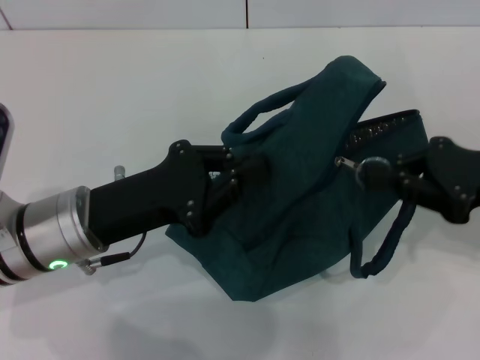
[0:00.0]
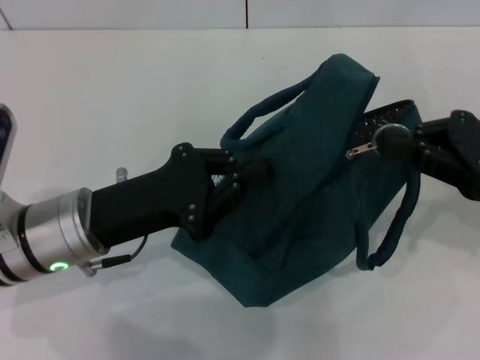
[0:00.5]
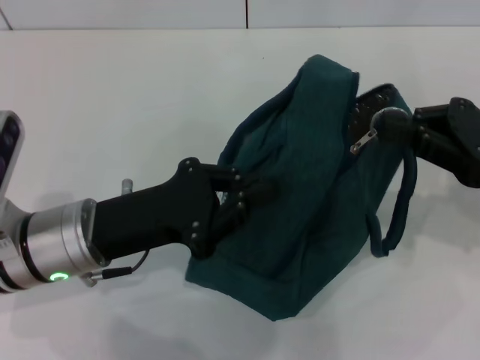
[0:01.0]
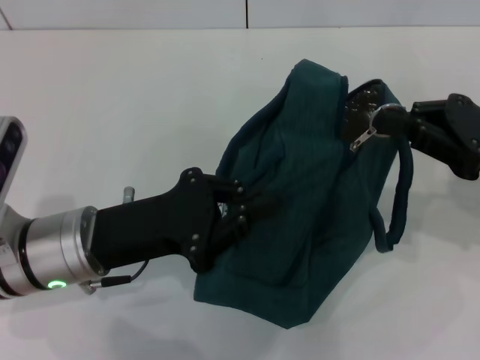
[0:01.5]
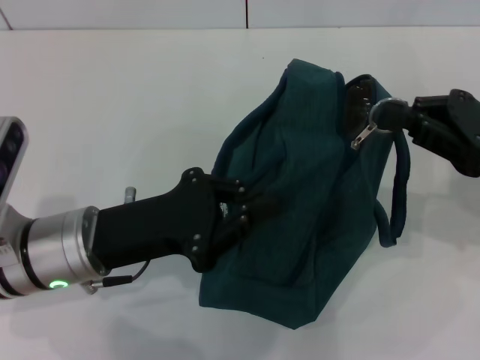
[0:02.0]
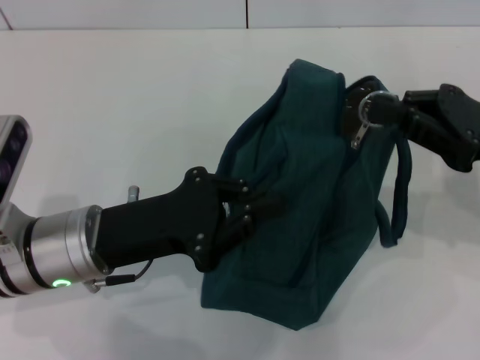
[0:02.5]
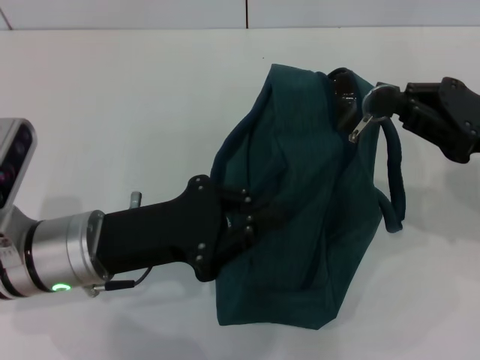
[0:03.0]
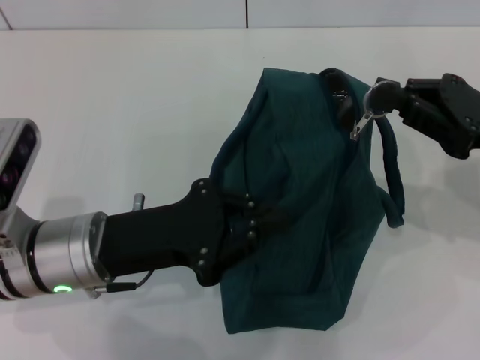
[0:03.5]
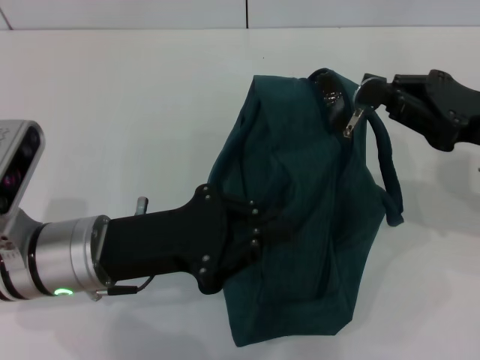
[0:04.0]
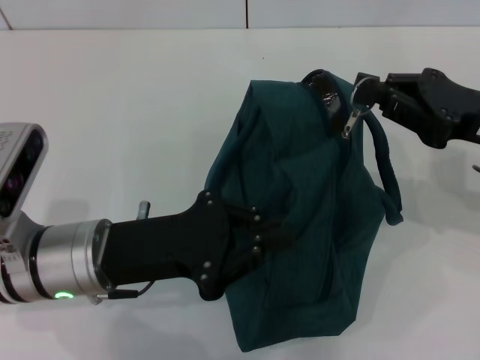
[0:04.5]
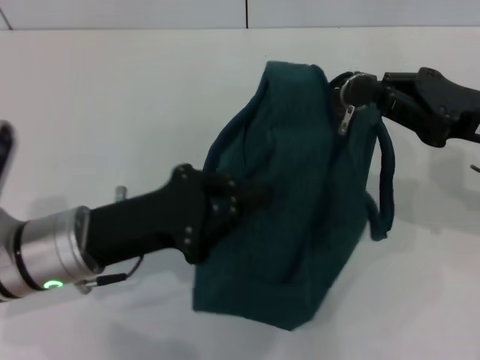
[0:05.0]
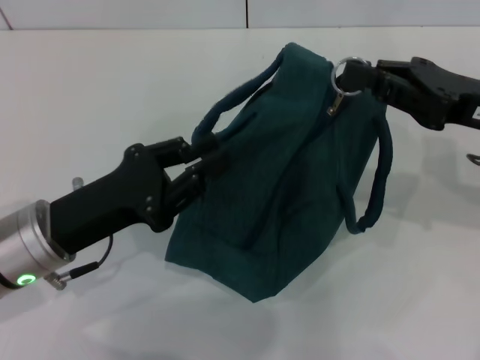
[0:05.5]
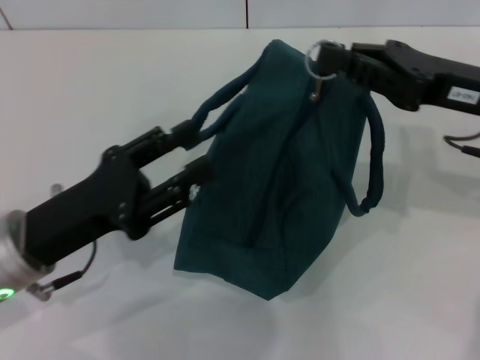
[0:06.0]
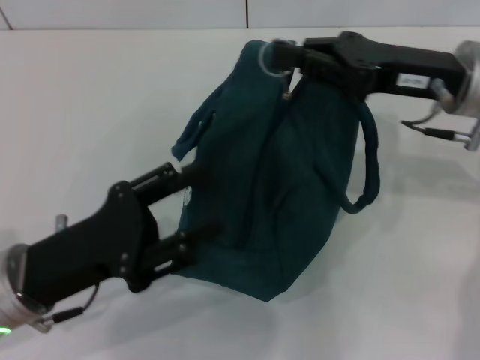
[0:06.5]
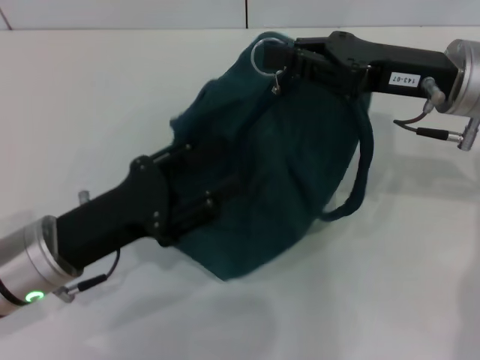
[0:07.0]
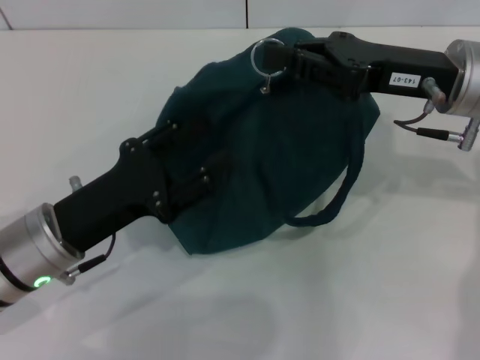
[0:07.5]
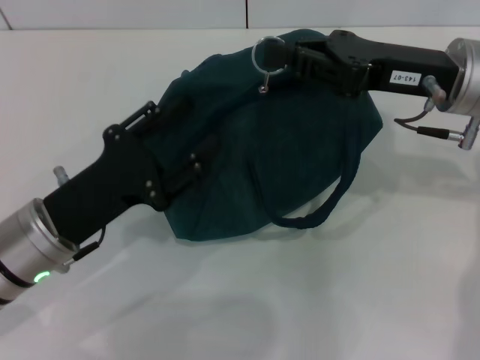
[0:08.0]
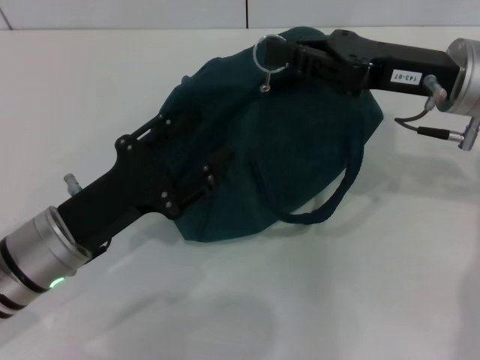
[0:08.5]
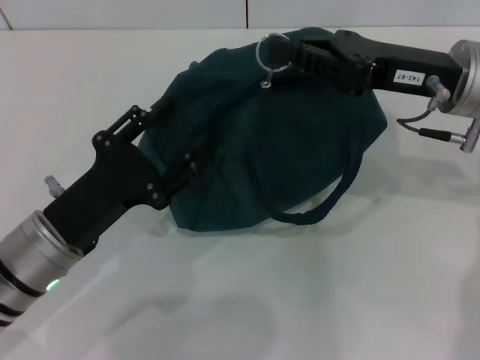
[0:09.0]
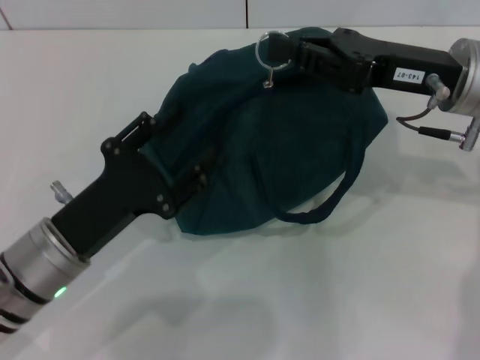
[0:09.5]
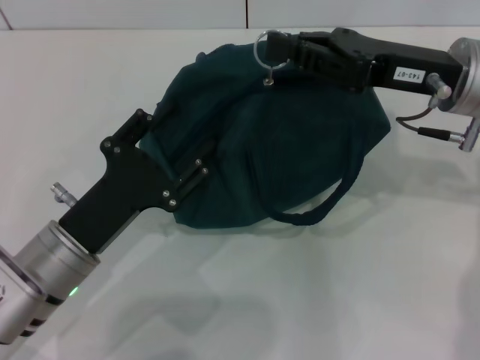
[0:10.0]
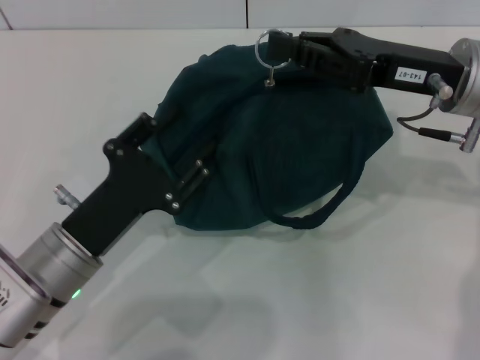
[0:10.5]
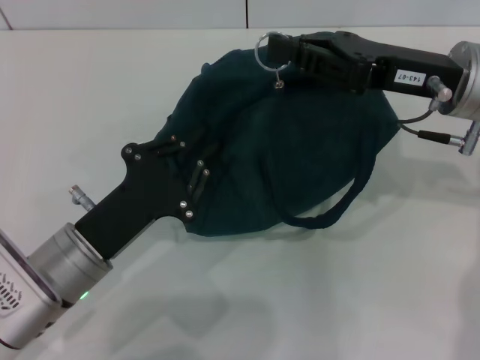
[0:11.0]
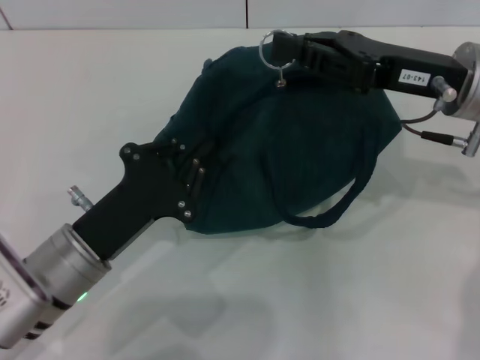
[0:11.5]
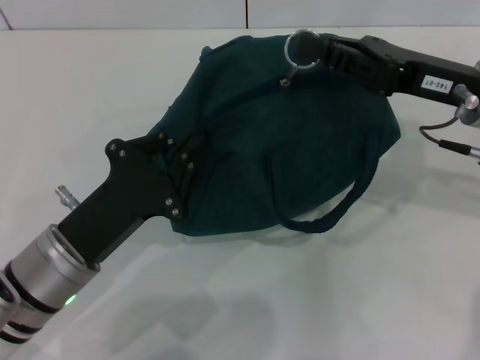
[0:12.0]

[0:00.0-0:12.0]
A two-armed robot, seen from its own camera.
0:02.0 to 0:04.0: There are only small adjustments of the grippers.
0:04.0 to 0:06.0: The left gripper ends up roughly 5 cm from where it was, and opens its fingers.
0:10.0 to 0:12.0: The left gripper closes.

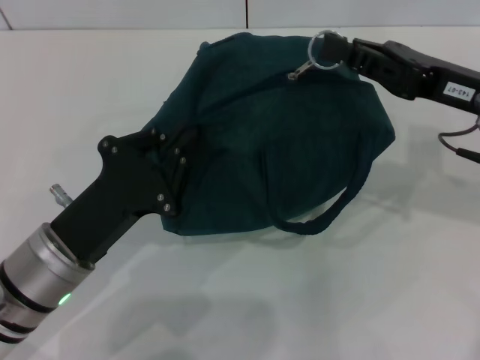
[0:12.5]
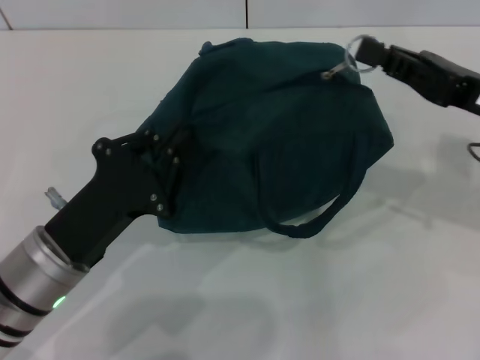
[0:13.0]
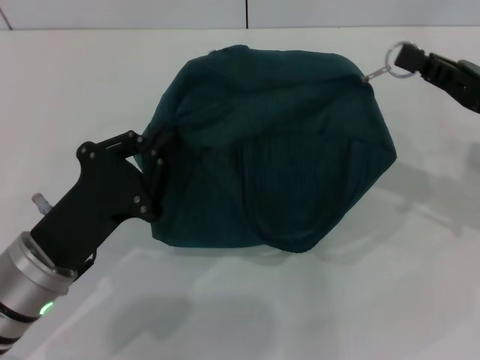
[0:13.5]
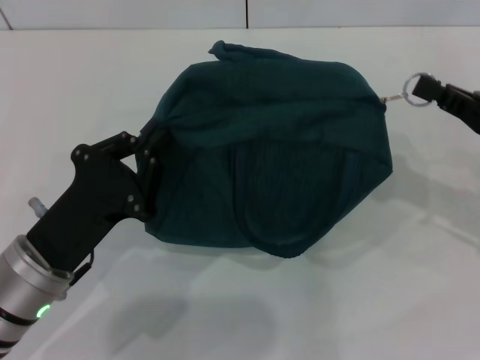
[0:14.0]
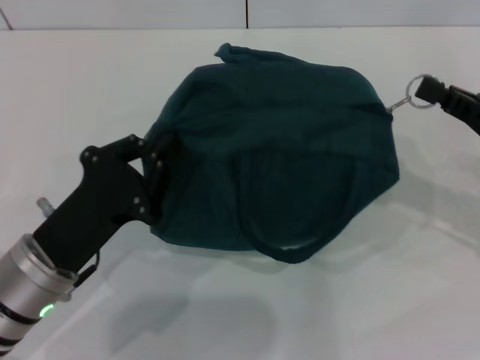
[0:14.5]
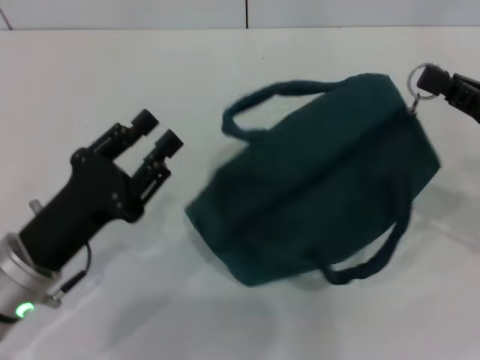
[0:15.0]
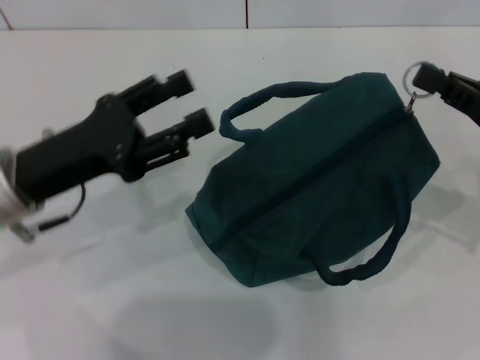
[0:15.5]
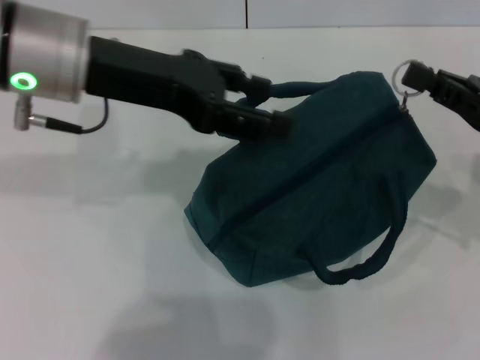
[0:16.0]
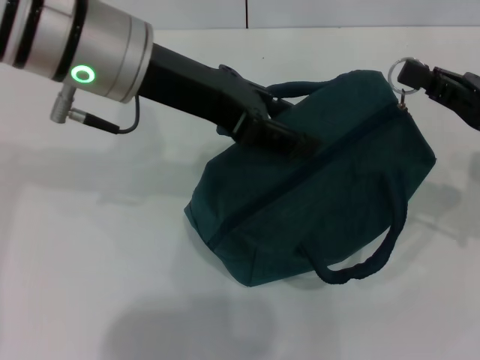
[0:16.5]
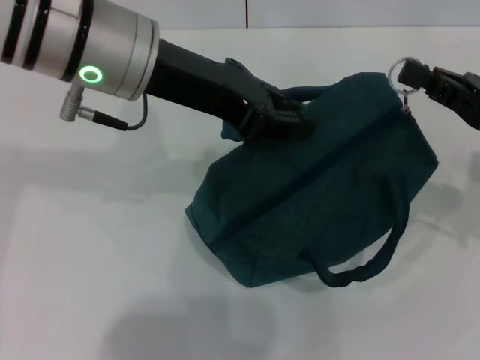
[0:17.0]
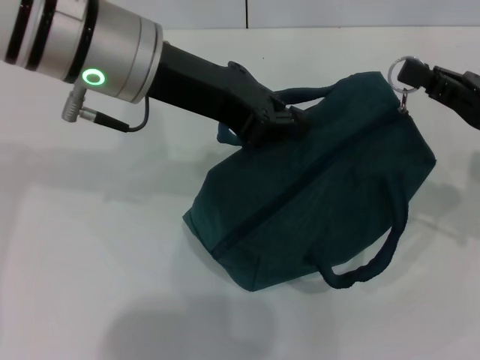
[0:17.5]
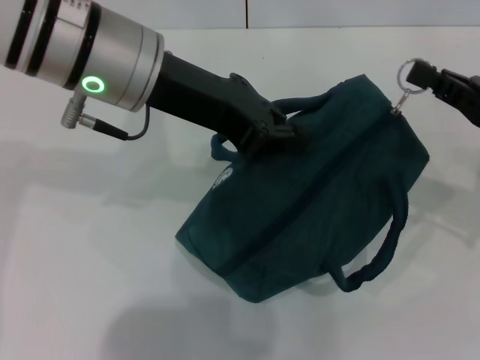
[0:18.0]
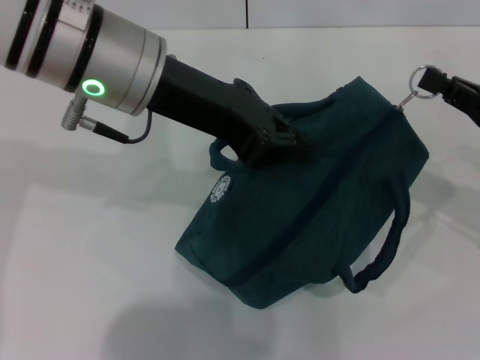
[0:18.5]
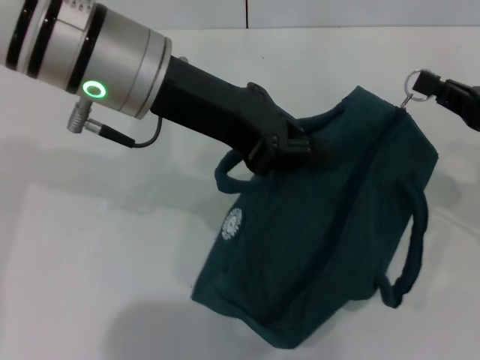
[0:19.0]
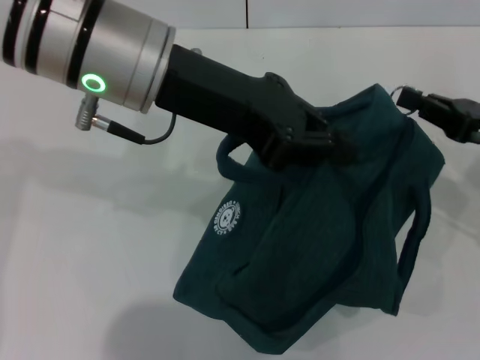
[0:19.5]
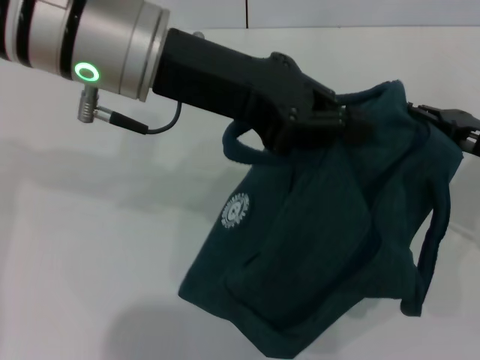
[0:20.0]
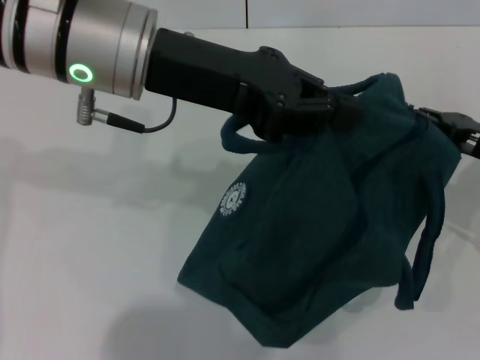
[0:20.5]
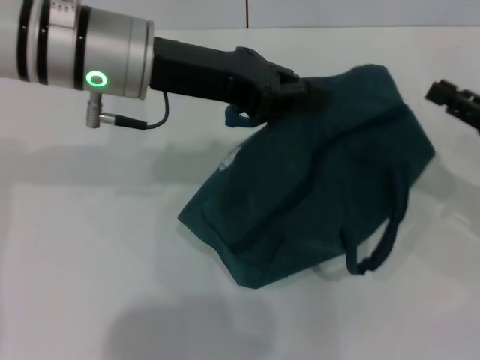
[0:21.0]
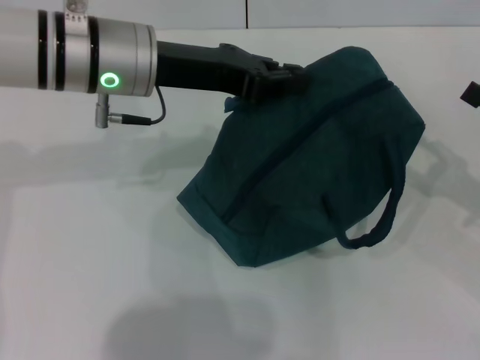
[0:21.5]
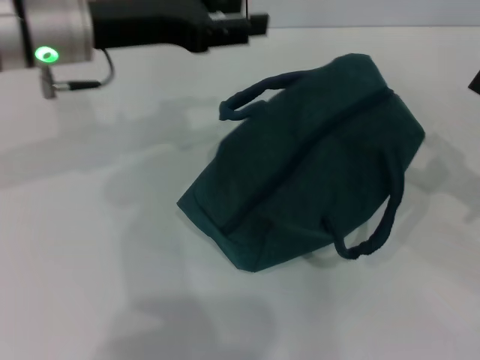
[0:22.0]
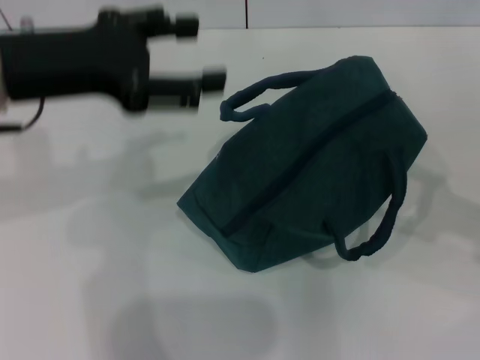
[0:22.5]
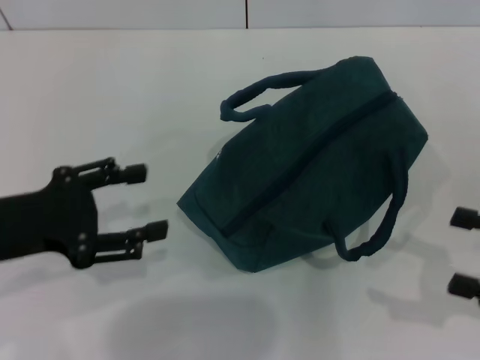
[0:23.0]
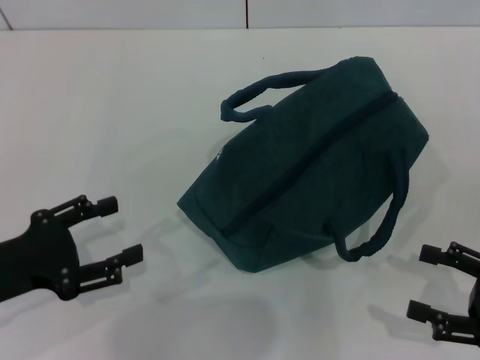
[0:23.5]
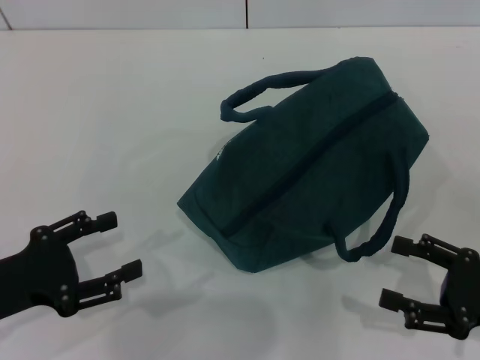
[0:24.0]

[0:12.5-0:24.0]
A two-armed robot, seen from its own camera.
Step, 0:12.5 to 0:20.5: Zip up the lunch bag with your right hand.
Step, 0:21.0 to 0:22.0: Hold the lunch bag with your left hand.
0:12.5 to 0:14.5: The right gripper travels to the right by roughly 10 cm.
0:14.5 to 0:16.5: The left gripper goes roughly 25 cm upward, forward and to the right, and opens its fingers.
0:16.5 to 0:18.5: The left gripper closes up.
0:20.0 to 0:22.0: The left gripper is displaced to the left by about 5 cm, and opens. The right gripper is displaced to the right by roughly 5 cm, and opens up.
0:22.0 to 0:24.0: The left gripper moves backward, downward and to the left, approximately 25 cm, and opens up. Meanwhile the right gripper shifts about 10 cm backward and downward.

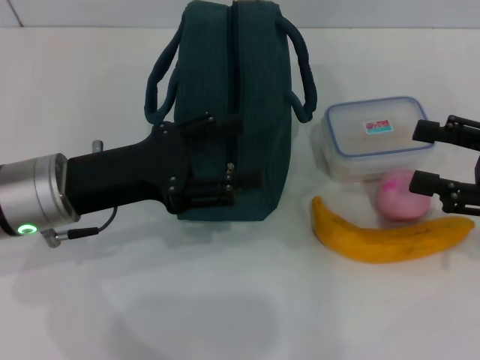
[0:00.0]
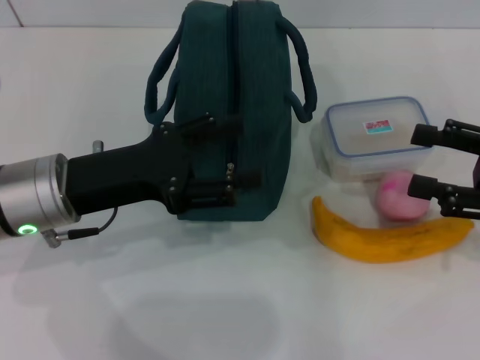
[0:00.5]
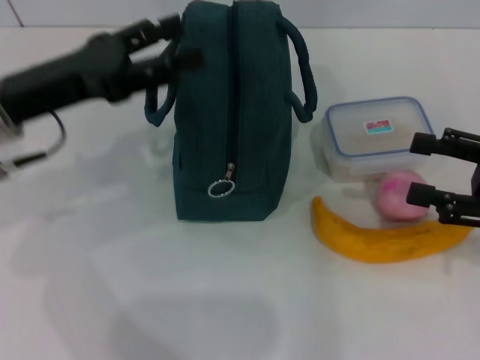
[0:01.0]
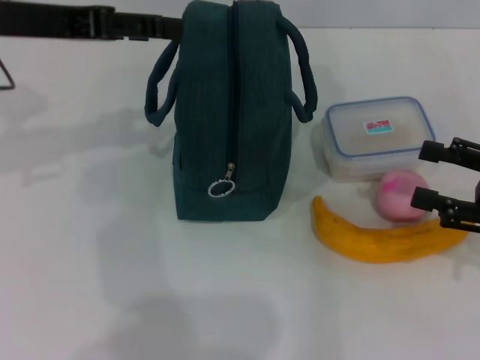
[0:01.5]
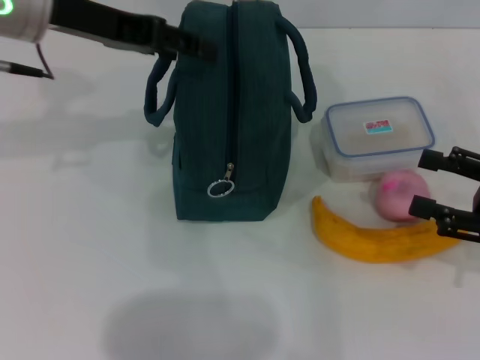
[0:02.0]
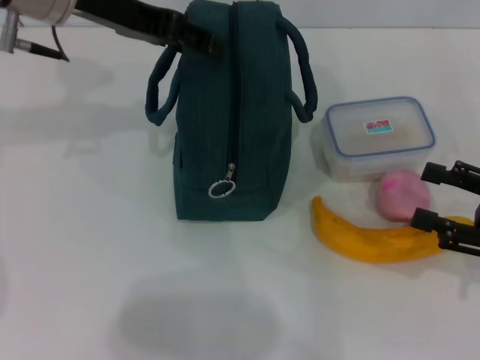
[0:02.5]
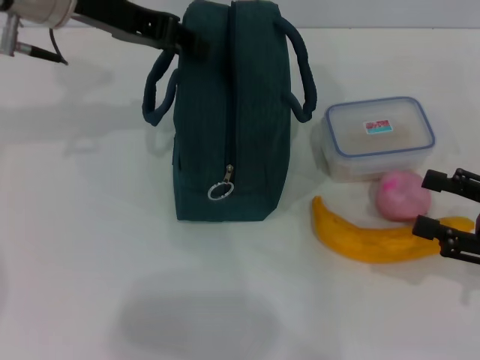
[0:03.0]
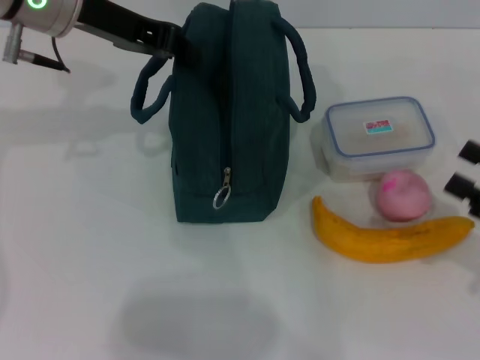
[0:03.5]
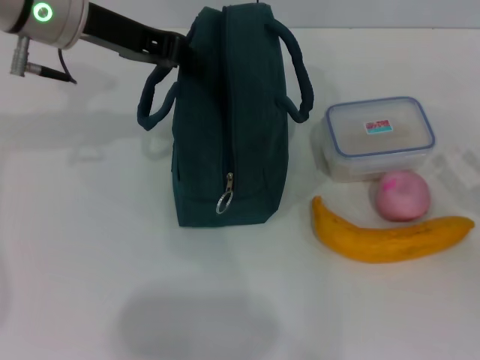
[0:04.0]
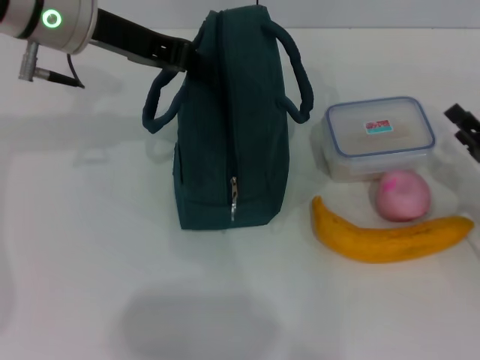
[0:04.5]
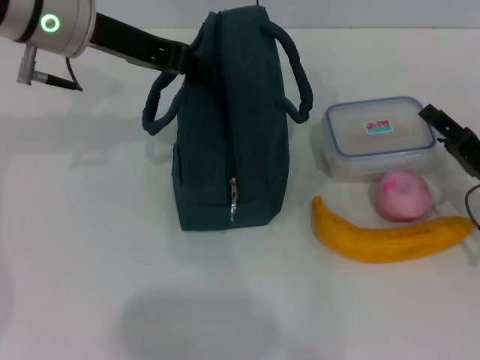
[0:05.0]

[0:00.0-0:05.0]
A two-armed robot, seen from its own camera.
Step, 0:00.0 to 0:03.5: Hold the lunch bag with your left hand.
0:00.0 to 0:02.5: The right gripper moves about 5 cm. The left gripper moves upward and forward, some 20 cm.
0:02.5 to 0:05.0: The right gripper travels downward and forward by about 10 cm, while the left gripper closes.
